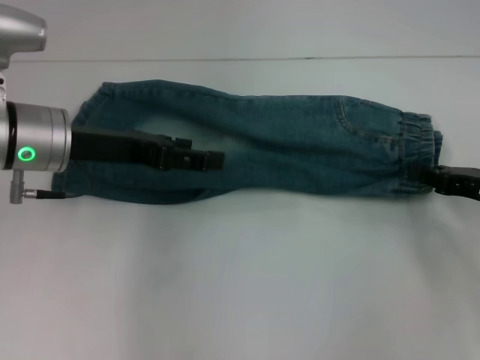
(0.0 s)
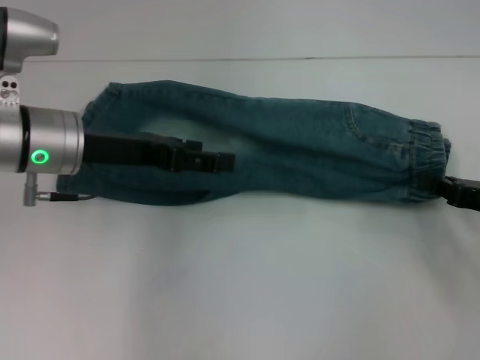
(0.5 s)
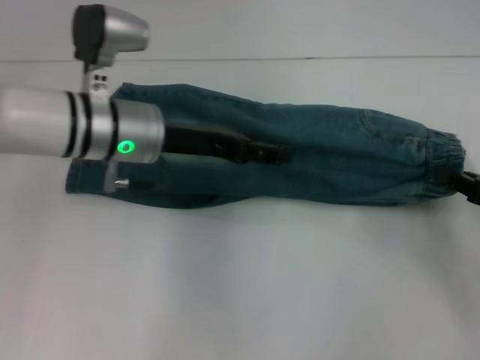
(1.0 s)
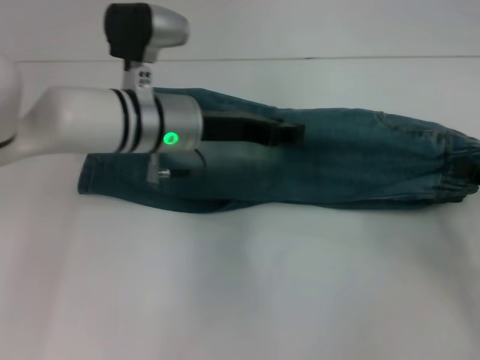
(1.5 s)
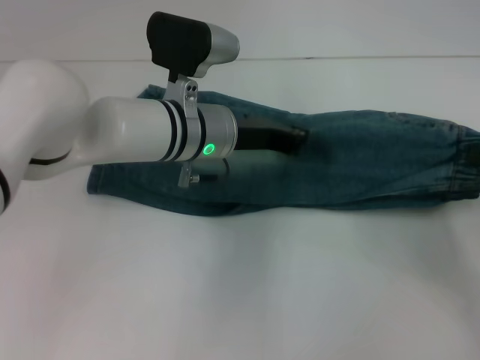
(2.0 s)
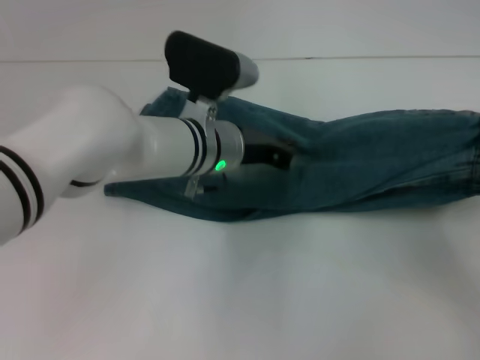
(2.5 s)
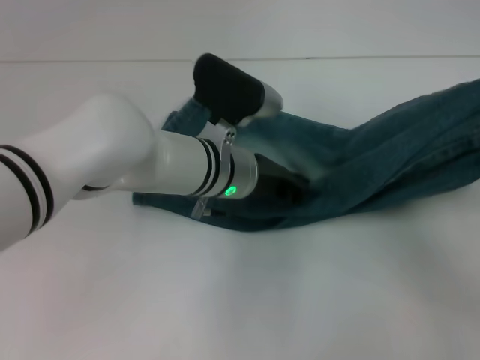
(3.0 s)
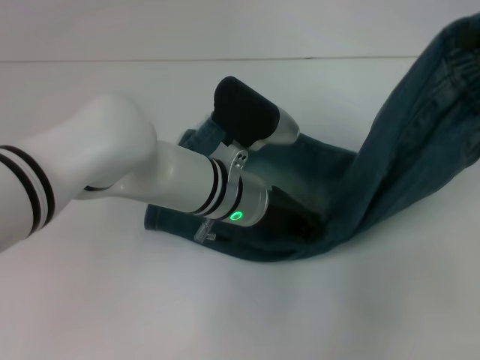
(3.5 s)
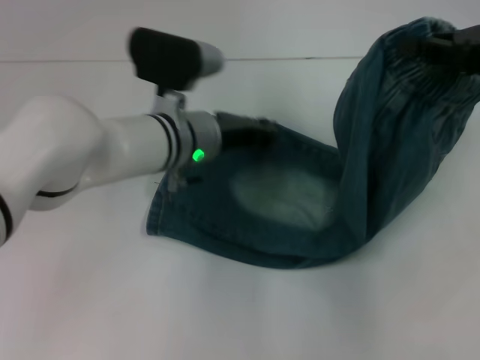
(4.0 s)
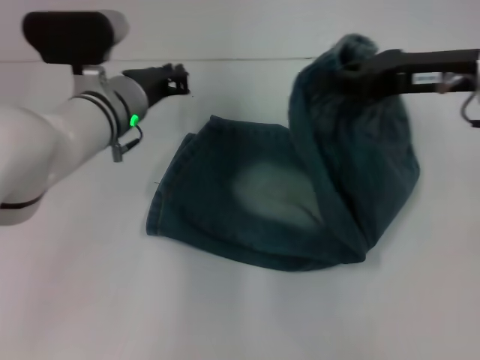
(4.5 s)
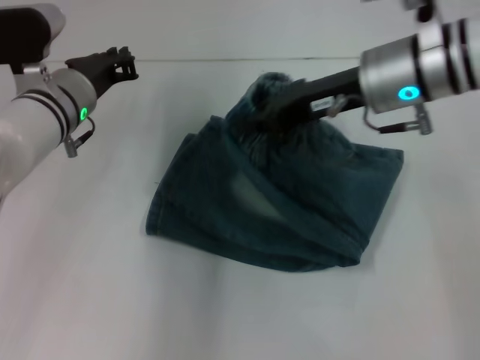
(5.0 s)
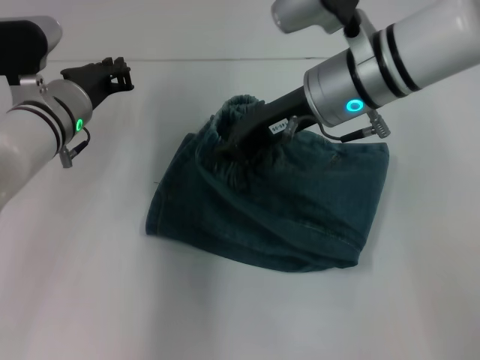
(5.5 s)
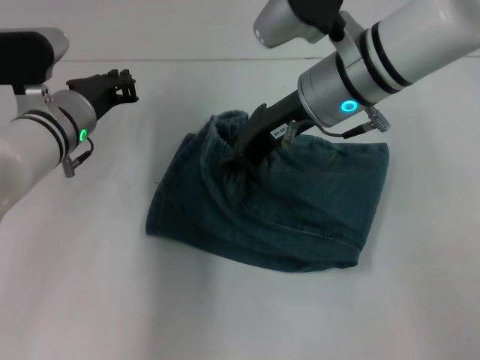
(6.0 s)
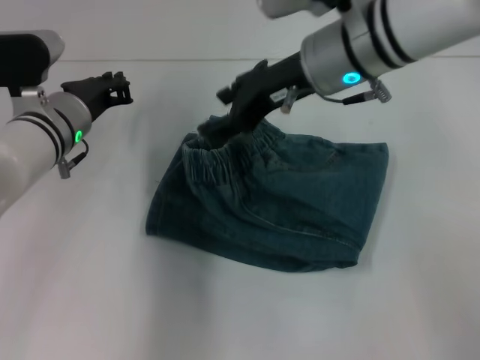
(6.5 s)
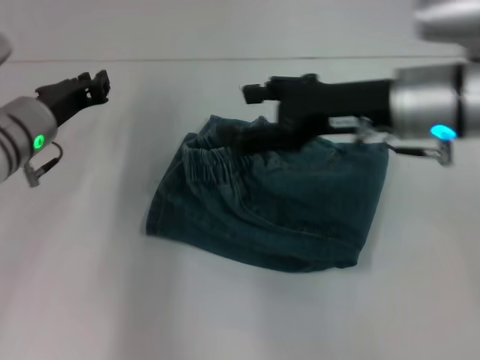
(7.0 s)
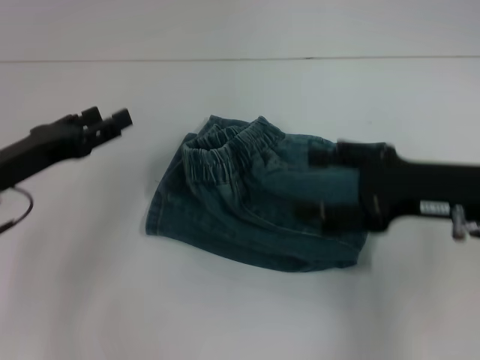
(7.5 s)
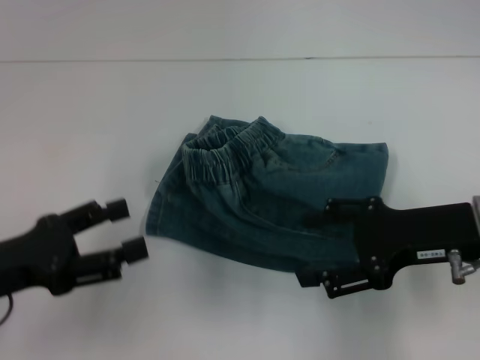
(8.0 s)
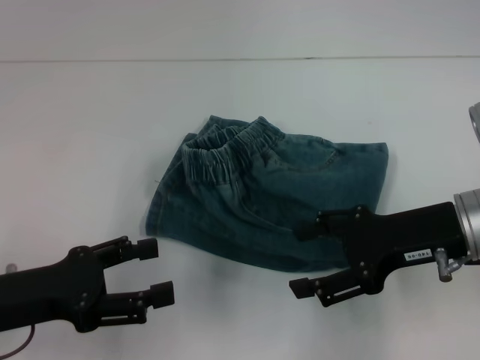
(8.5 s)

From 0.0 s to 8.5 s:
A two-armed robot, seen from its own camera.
Step, from 0.5 s to 3.5 s: Press the middle of the pants with your left hand.
Step, from 4.0 s to 7.0 s: Fold to the left with your right hand.
From 0.0 s to 2.0 s: The left gripper travels to the right by roughly 15 cm, and closes. Meanwhile the right gripper ends up approximately 5 cm from where it was.
From 2.0 s to 4.0 s: The right gripper is displaced upward, forward and to the left by about 15 cm.
From 4.0 s to 6.5 s: The right gripper heads to the left, covering roughly 20 cm, and opens. The left gripper shifts about 10 cm to the left.
From 6.5 s to 8.5 s: The right gripper travels to the right, backward and downward by approximately 20 cm, and opens. The left gripper goes about 20 cm backward and to the left, and opens its fingers.

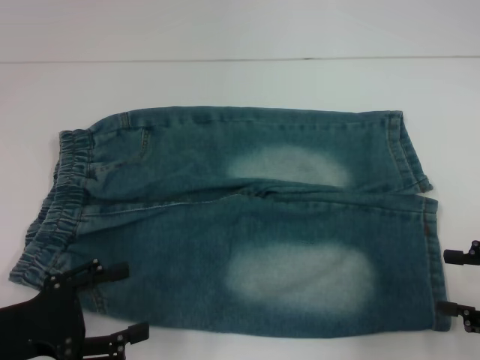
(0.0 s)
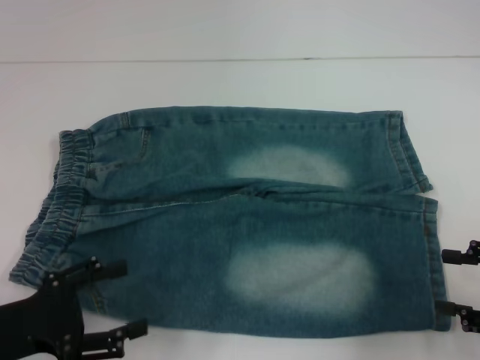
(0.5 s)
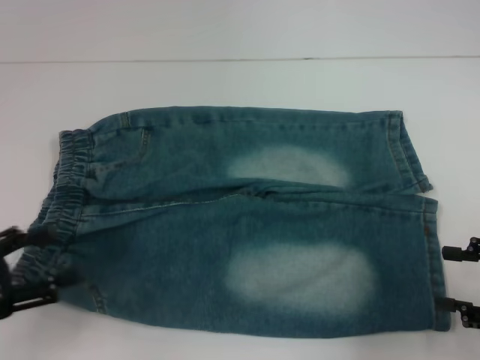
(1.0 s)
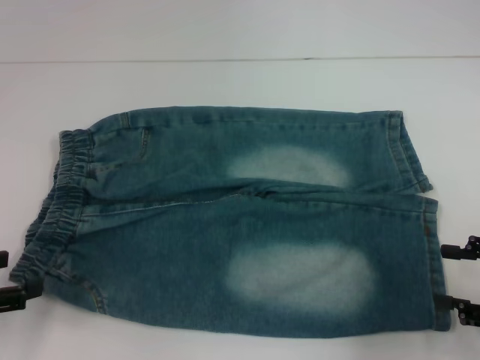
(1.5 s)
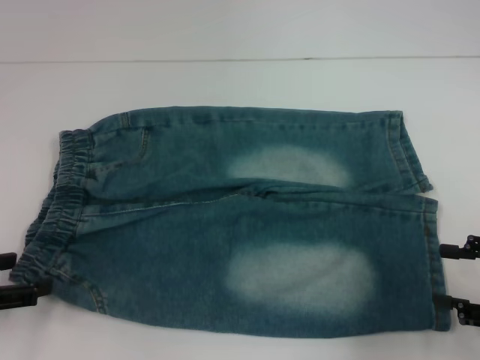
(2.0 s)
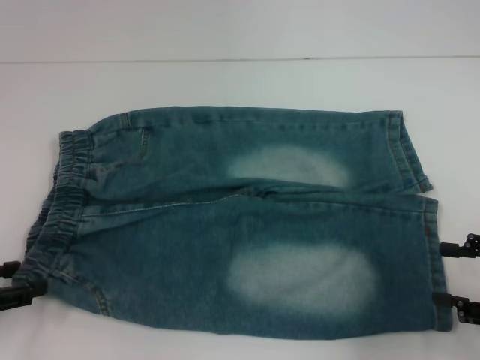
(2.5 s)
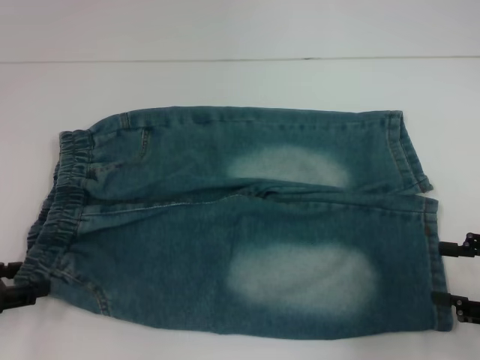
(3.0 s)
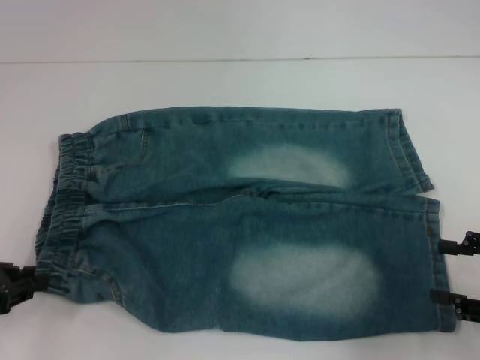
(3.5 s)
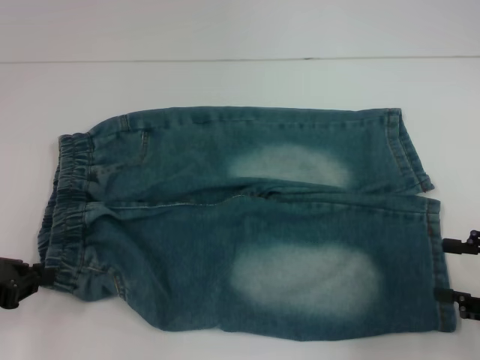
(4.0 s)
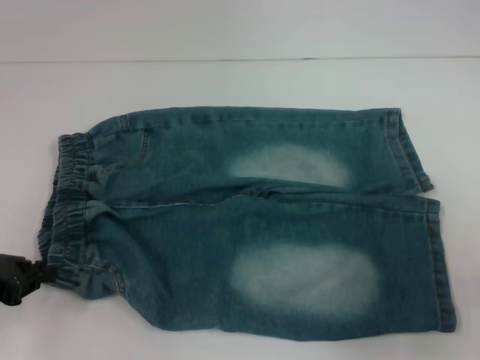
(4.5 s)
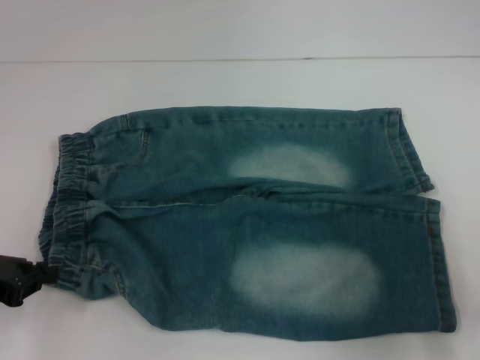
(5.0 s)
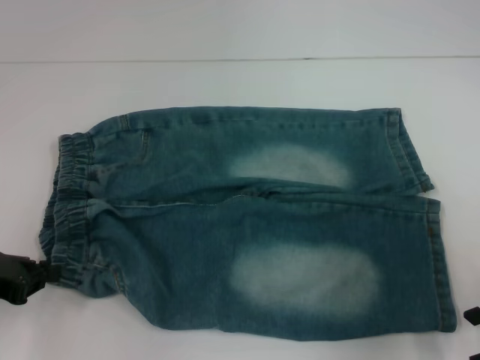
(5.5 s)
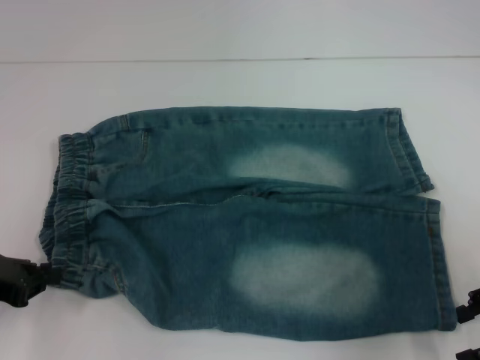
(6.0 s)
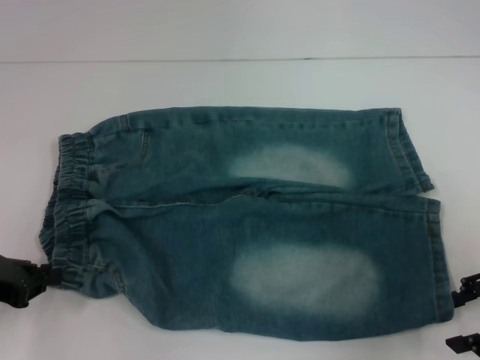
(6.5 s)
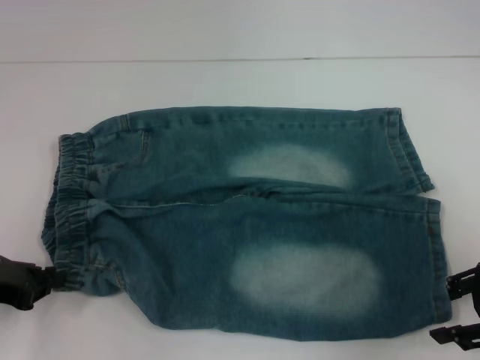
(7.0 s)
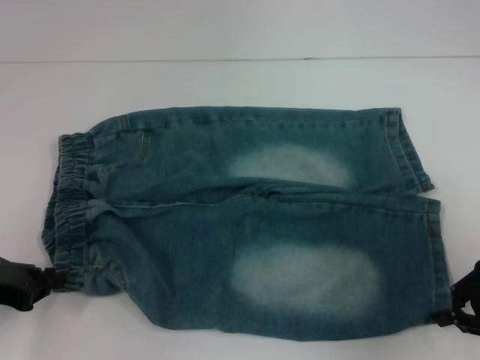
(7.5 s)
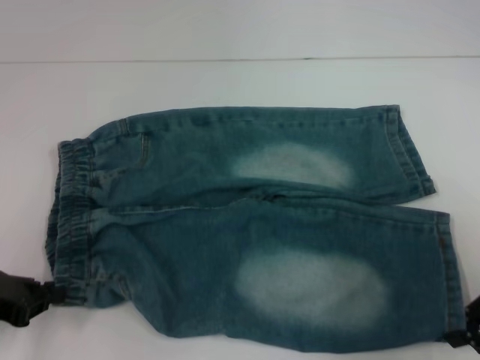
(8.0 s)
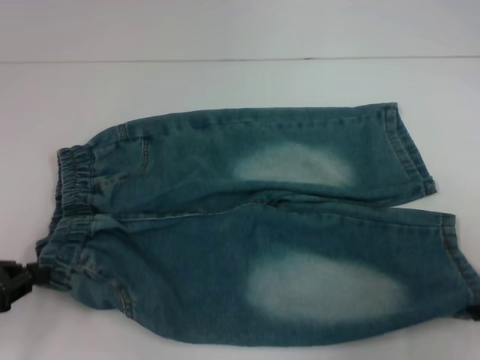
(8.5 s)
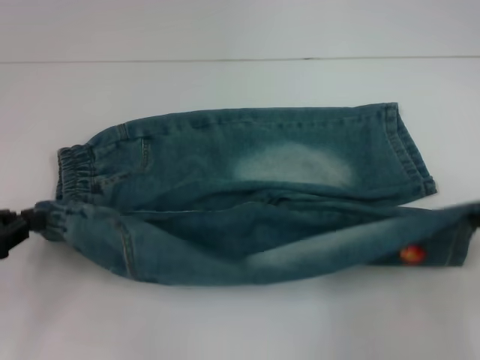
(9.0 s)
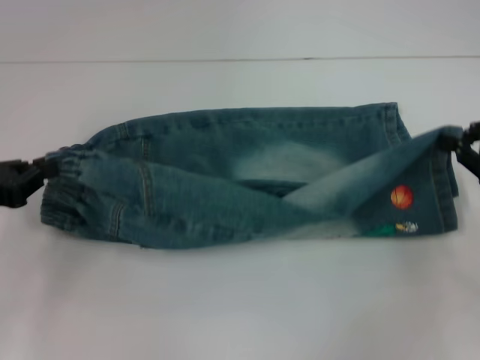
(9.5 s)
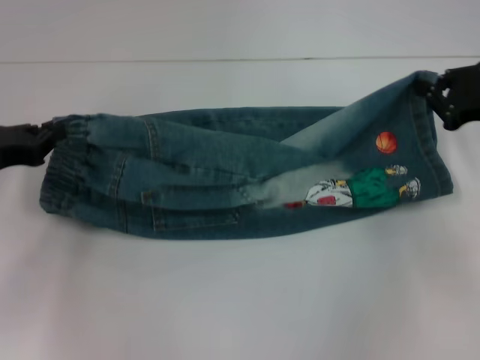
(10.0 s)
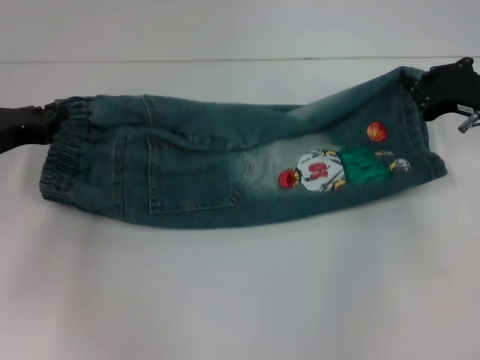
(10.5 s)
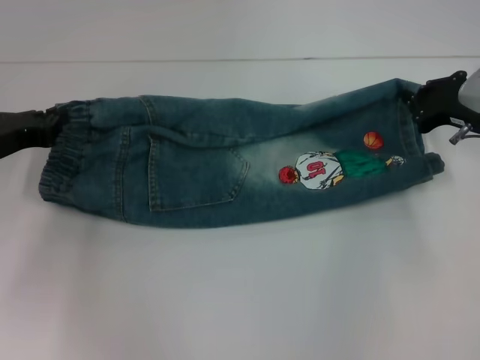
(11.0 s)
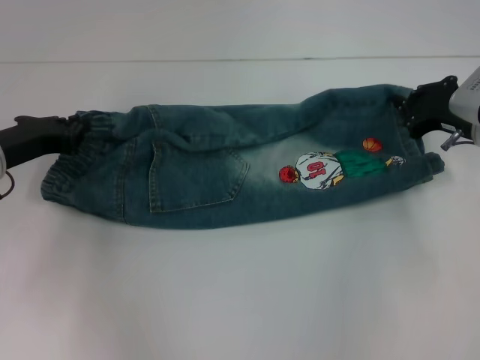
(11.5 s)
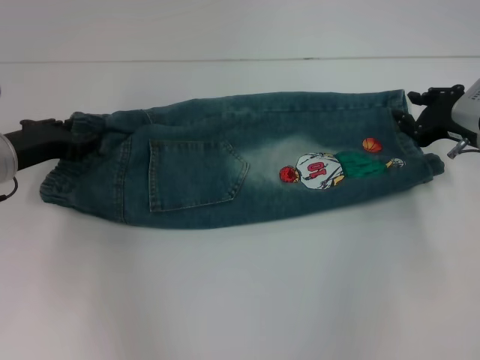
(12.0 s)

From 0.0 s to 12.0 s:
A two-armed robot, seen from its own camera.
Step, from 0.0 s to 7.0 s: Hold the lower left waistband with your left hand.
Step, from 7.5 s to 8.0 s: Grab the lower right pant leg with your right hand.
Step, from 8.5 s to 11.5 s: Fold upward with your right hand.
From 0.0 s to 2.0 s: The left gripper moves to the left, some 5 cm.
From 2.0 s to 4.0 s: The left gripper closes its fingers.
From 4.0 s to 6.0 s: The right gripper moves about 5 cm.
From 6.0 s to 8.0 s: The right gripper closes.
From 8.0 s to 10.0 s: The right gripper travels forward by approximately 10 cm, while the left gripper is displaced forward by about 10 cm.
From 10.0 s to 12.0 s: The left gripper ends up roughly 5 cm from where it was. The right gripper travels downward by approximately 5 cm.

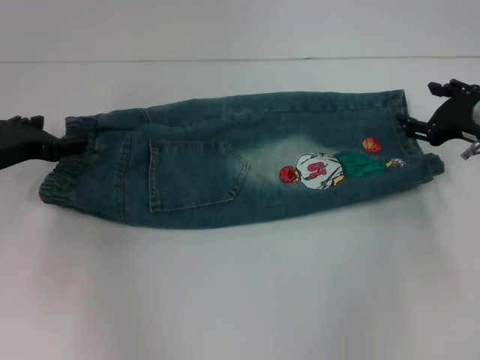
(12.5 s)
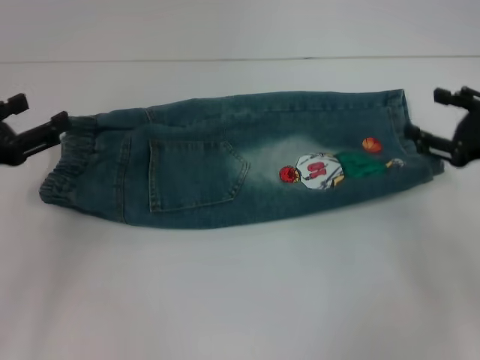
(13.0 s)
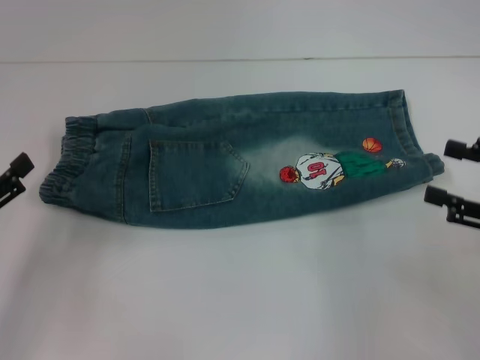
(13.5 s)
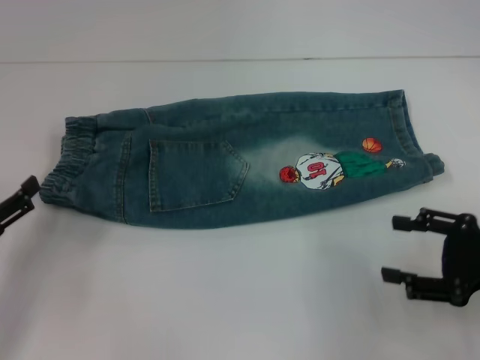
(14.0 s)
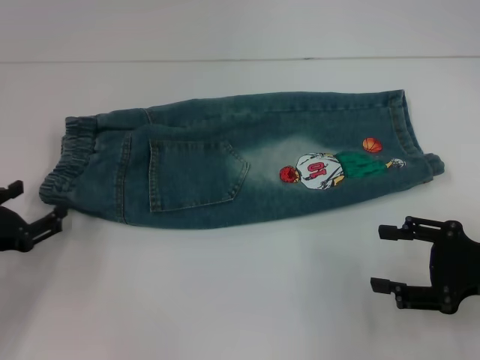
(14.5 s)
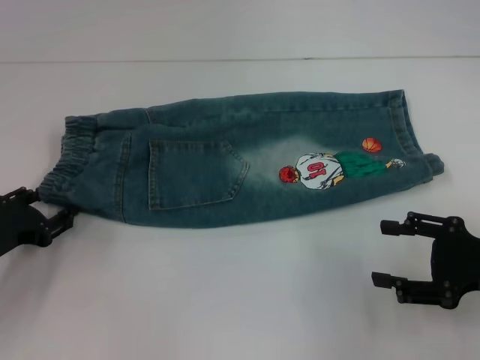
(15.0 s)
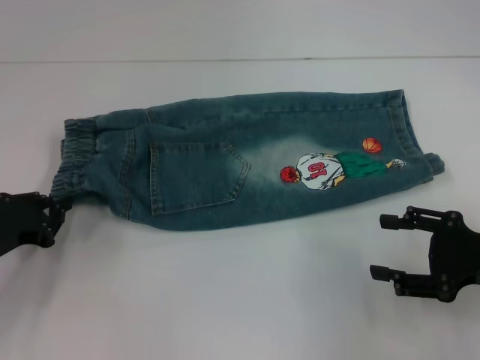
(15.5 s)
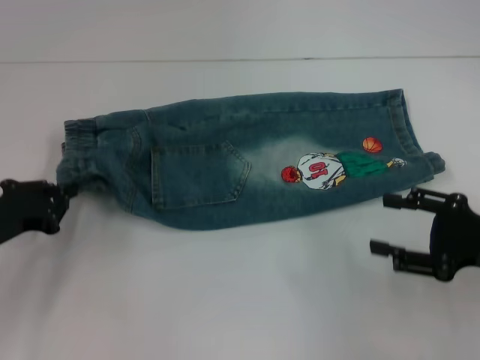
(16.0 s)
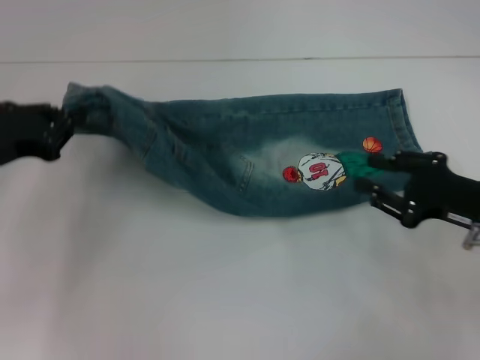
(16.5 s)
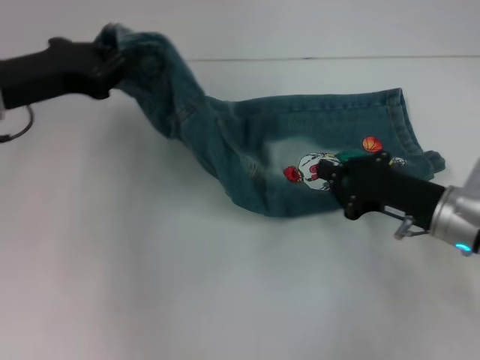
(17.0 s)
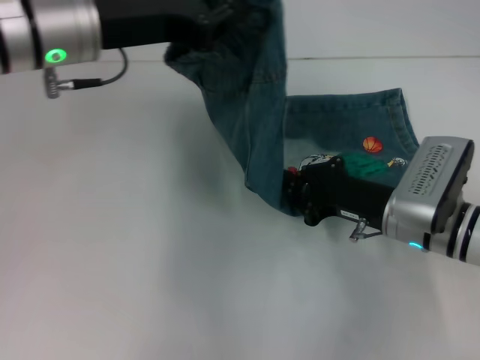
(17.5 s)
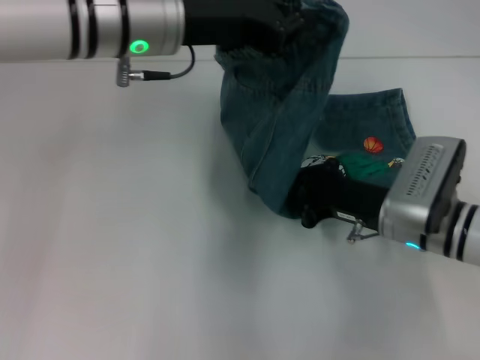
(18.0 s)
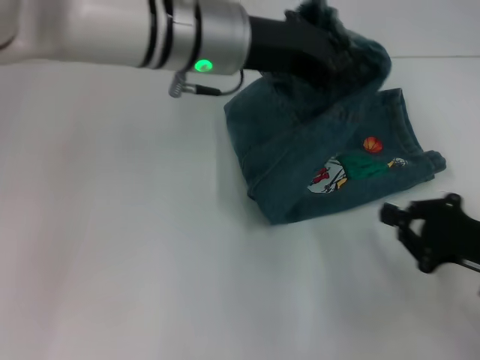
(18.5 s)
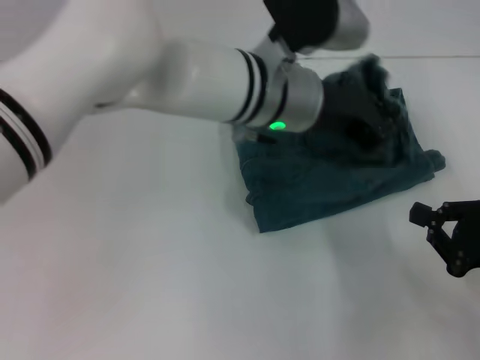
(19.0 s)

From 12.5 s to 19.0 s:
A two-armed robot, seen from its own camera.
Step, from 12.5 s to 15.5 s: Hold the waistband with your left hand.
Step, from 16.0 s to 18.0 s: Press the middle of the pants with your right hand.
From 12.5 s to 14.5 s: The left gripper travels backward and downward by about 10 cm. Meanwhile the right gripper travels backward by some 15 cm.
From 14.5 s to 17.0 s: The right gripper heads to the left and forward, covering roughly 10 cm, and closes up. The left gripper moves upward, forward and to the right, about 20 cm, and closes up.
From 17.0 s to 19.0 s: The right gripper heads to the right and backward, covering roughly 10 cm. Meanwhile the left gripper travels to the right by some 25 cm.
